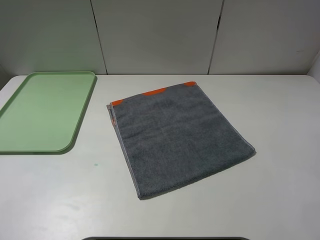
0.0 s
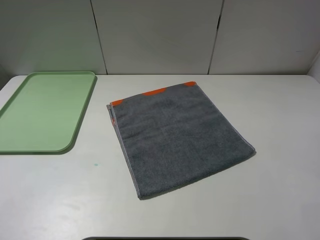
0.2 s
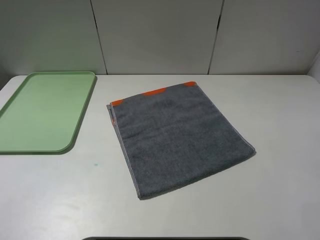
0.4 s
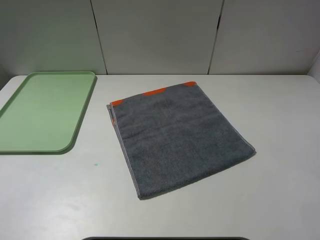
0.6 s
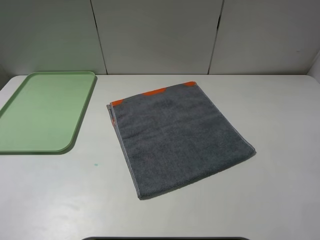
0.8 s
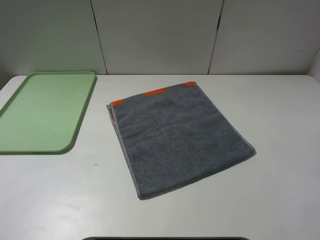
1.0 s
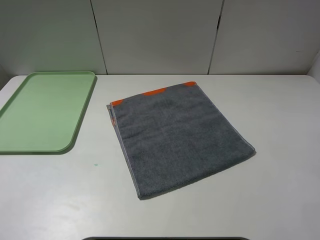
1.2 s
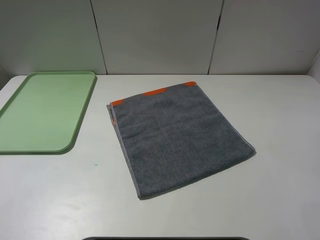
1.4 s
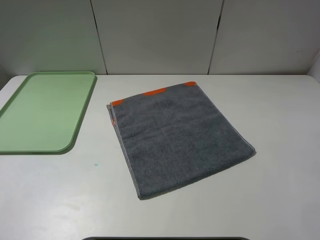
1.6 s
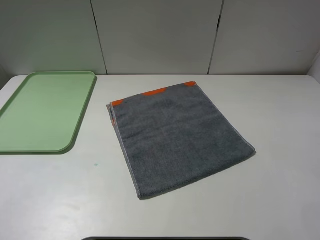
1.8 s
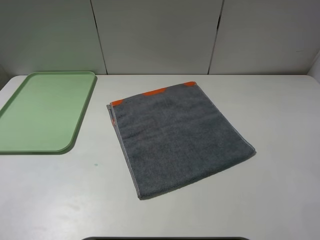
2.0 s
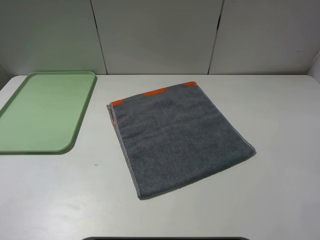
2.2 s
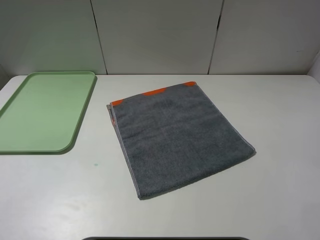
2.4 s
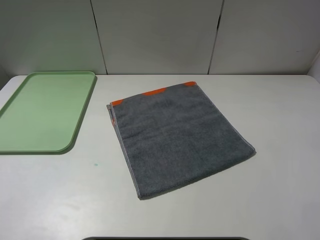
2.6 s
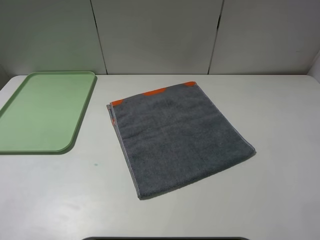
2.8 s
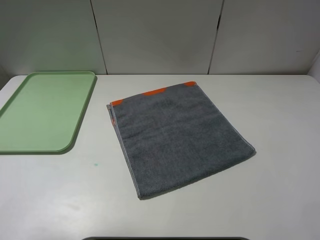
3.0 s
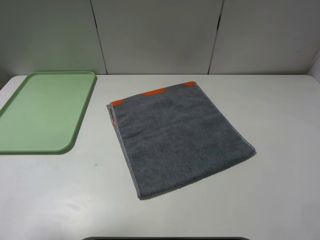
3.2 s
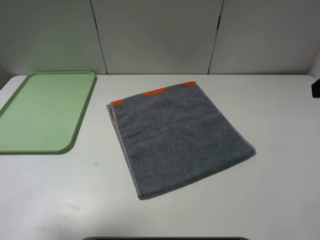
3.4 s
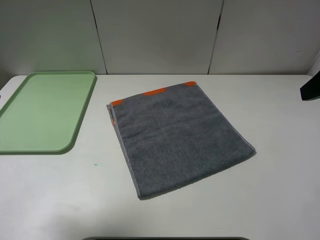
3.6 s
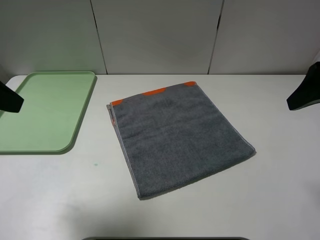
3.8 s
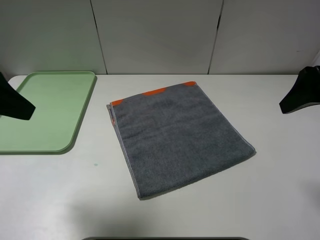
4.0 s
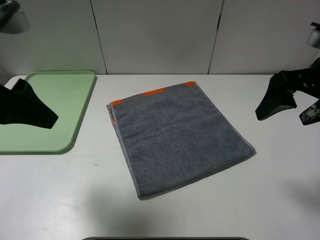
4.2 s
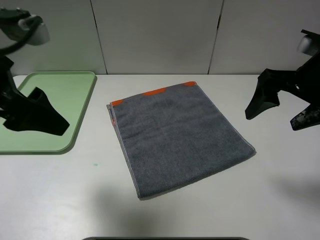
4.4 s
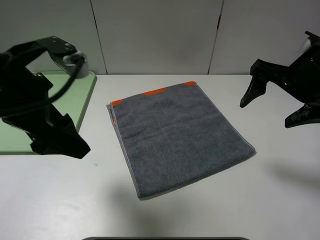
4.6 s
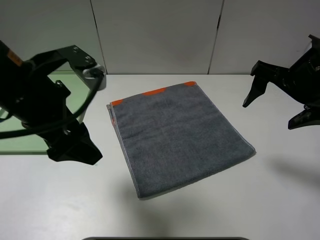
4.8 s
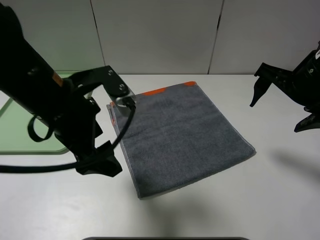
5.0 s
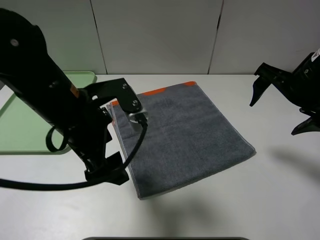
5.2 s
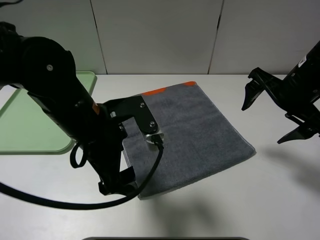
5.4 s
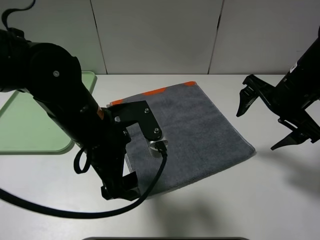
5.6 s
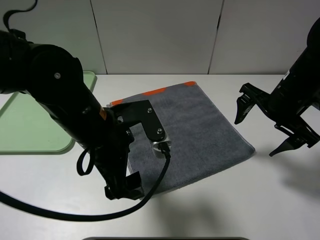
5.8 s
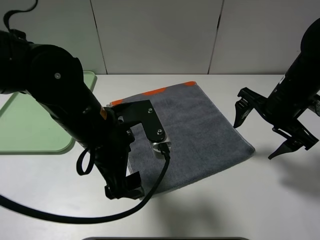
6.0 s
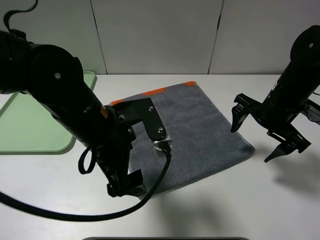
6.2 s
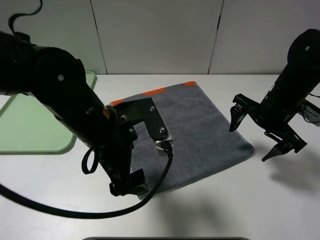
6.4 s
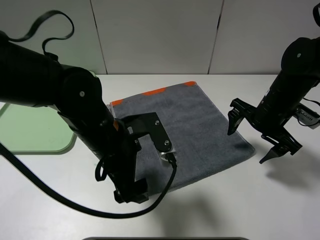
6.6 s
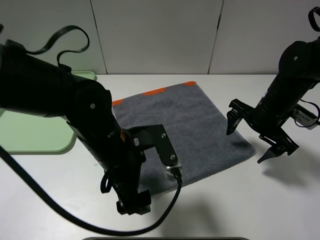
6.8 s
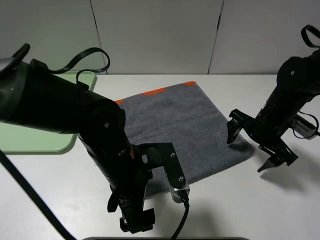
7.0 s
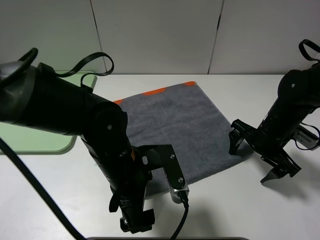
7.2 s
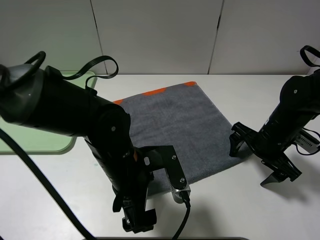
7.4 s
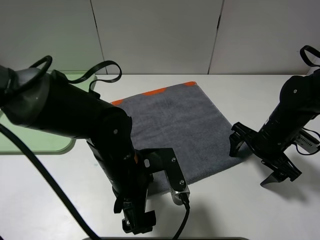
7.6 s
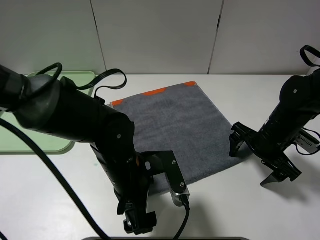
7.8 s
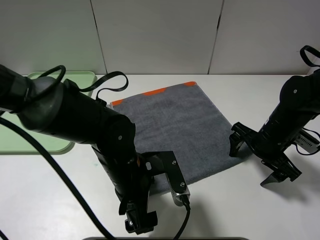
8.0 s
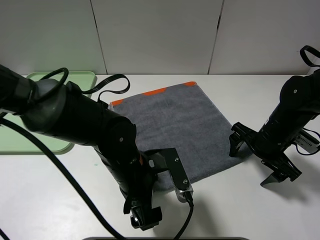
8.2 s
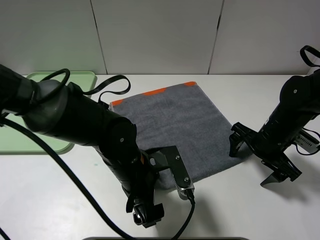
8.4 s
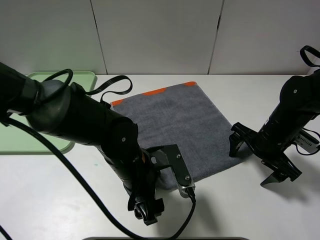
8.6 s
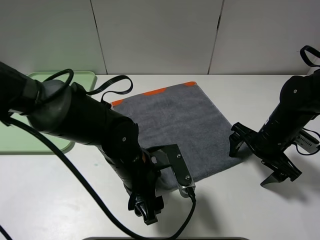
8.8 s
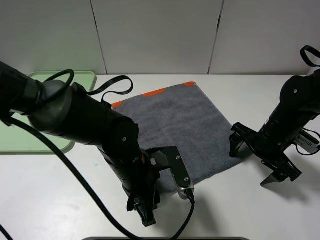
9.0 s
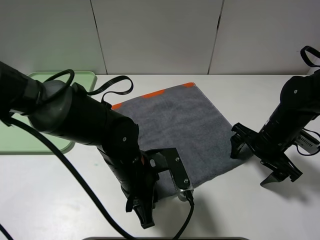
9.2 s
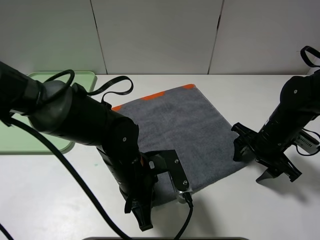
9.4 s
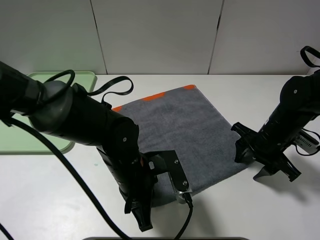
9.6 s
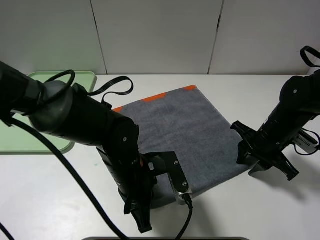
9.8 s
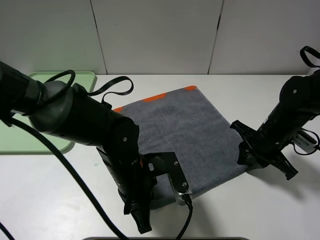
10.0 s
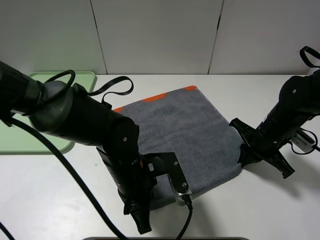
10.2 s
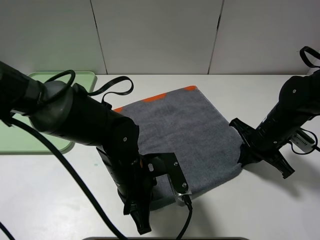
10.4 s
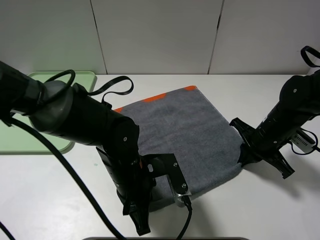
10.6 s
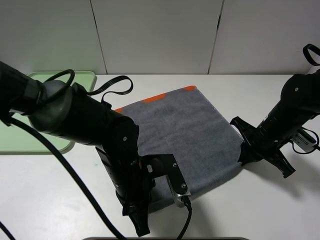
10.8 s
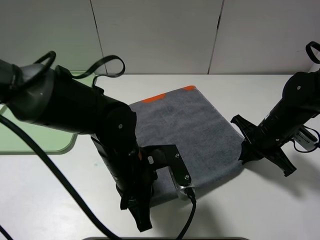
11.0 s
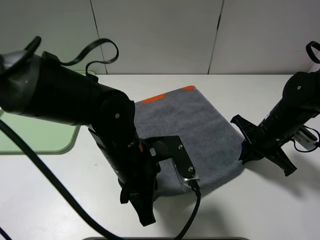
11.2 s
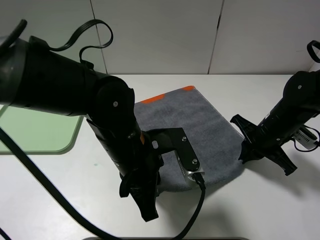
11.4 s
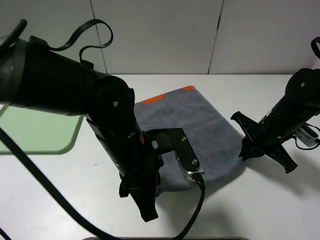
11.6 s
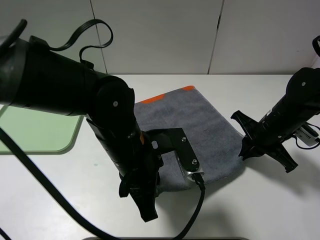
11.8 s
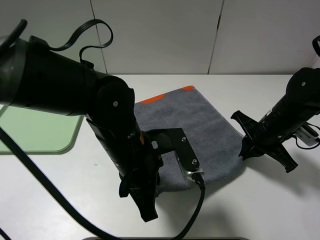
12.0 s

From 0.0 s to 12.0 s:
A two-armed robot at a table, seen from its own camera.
From 0.0 s to 1.6 s: The two grippers keep their place.
From 3.0 s to 4.4 s: The right gripper travels forward, downward and to the left by roughly 15 cm. Meanwhile the left gripper goes some 15 cm forward, to the right and downward.
From 4.4 s to 6.0 s: The left gripper moves to the right and downward, about 15 cm. Meanwhile the right gripper travels downward by about 10 cm.
From 6.0 s to 7.6 s: The two grippers go approximately 10 cm downward.
From 7.6 s to 9.0 s: The left gripper closes.
From 9.0 s to 10.4 s: The left gripper closes. Meanwhile the right gripper closes.
From 10.4 s to 12.0 s: The left gripper moves upward, some 5 cm.

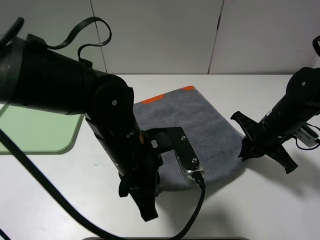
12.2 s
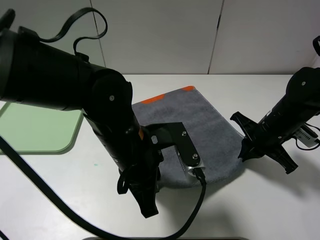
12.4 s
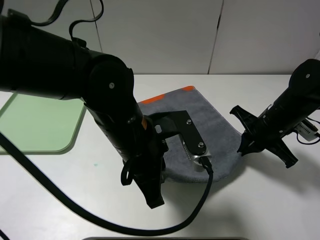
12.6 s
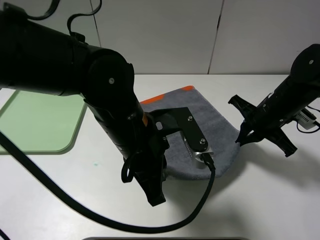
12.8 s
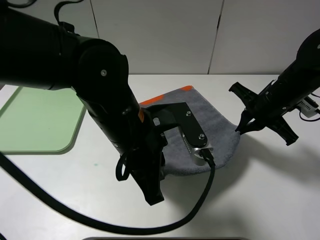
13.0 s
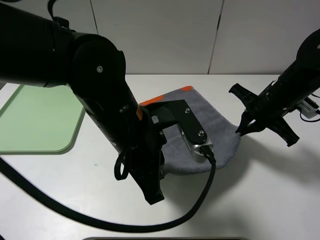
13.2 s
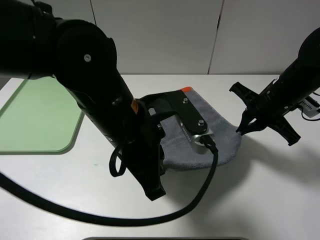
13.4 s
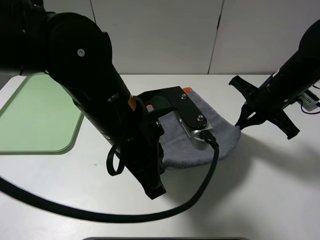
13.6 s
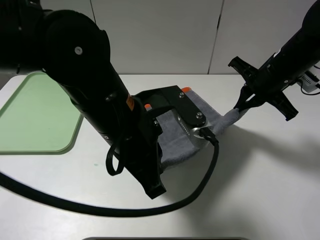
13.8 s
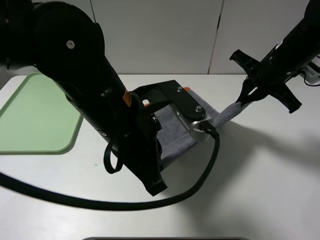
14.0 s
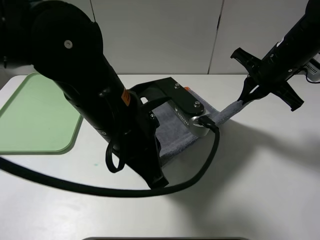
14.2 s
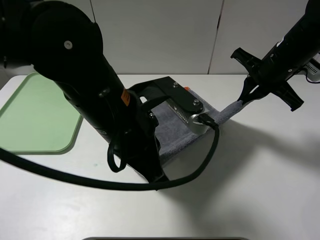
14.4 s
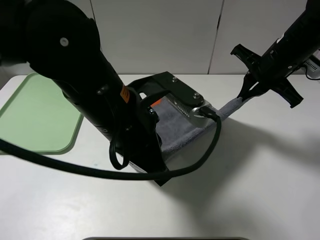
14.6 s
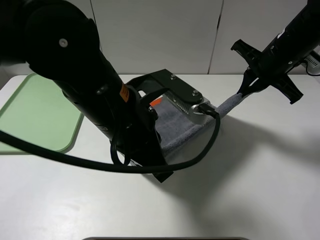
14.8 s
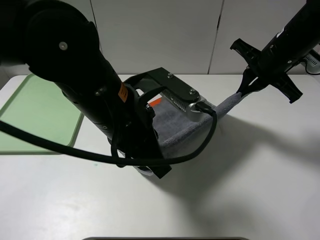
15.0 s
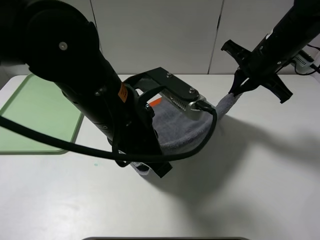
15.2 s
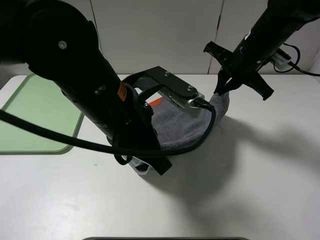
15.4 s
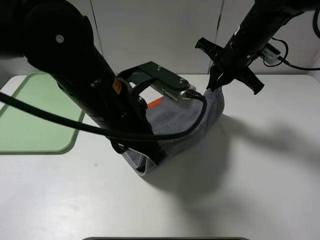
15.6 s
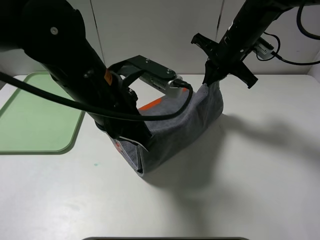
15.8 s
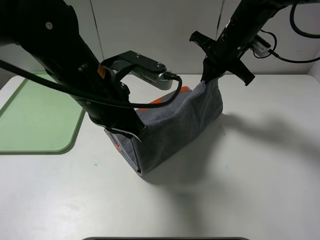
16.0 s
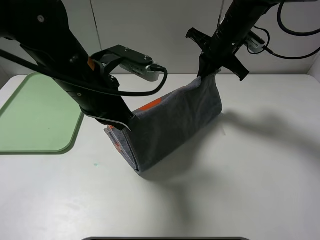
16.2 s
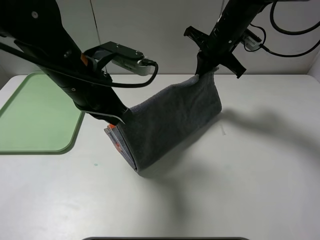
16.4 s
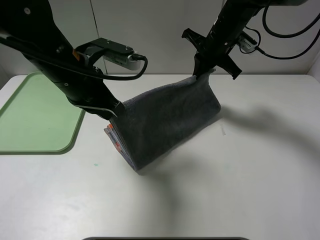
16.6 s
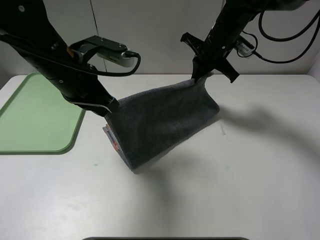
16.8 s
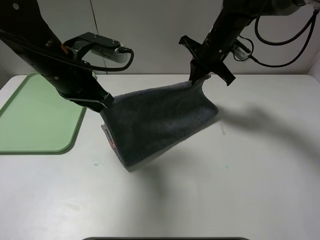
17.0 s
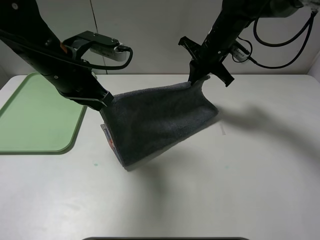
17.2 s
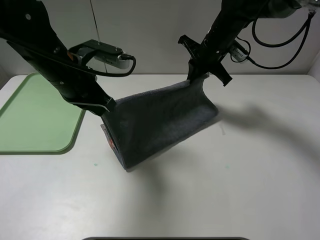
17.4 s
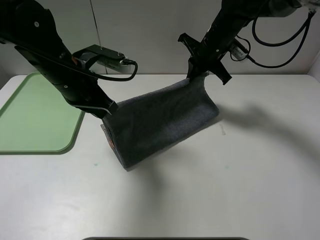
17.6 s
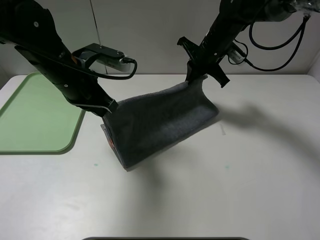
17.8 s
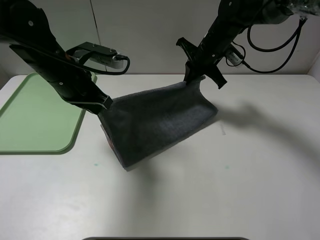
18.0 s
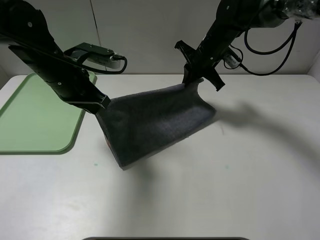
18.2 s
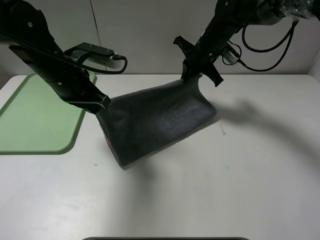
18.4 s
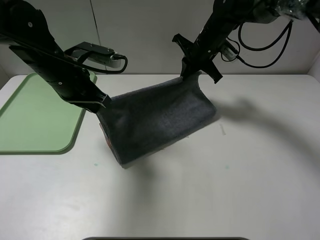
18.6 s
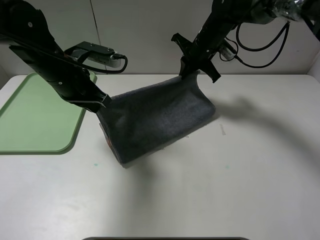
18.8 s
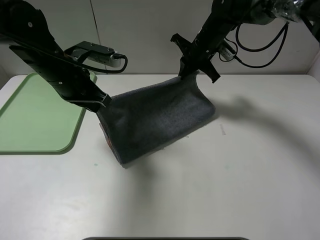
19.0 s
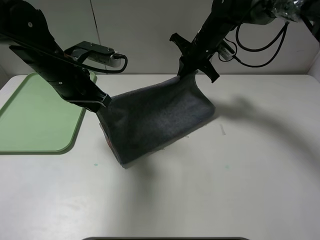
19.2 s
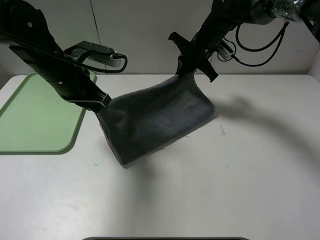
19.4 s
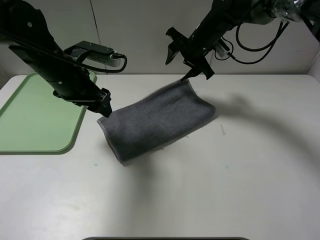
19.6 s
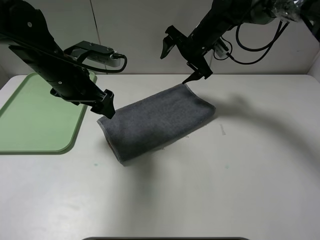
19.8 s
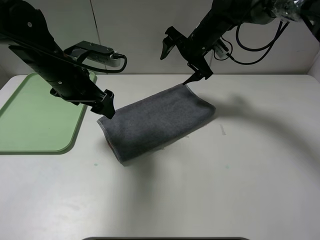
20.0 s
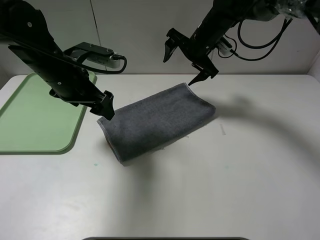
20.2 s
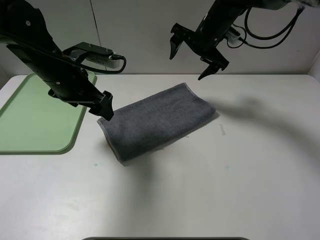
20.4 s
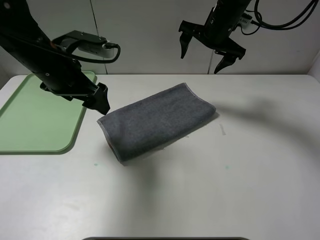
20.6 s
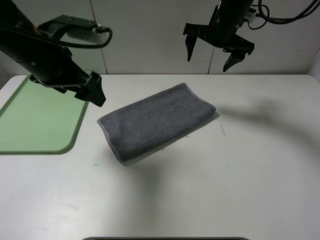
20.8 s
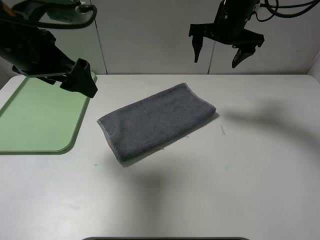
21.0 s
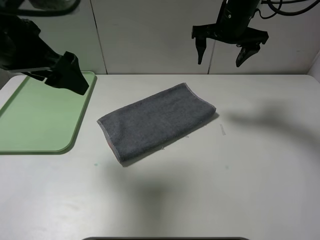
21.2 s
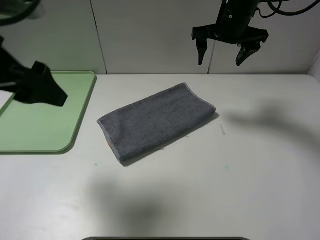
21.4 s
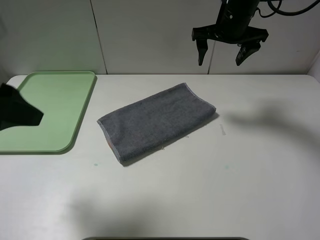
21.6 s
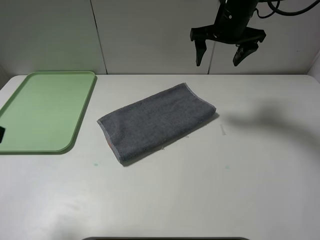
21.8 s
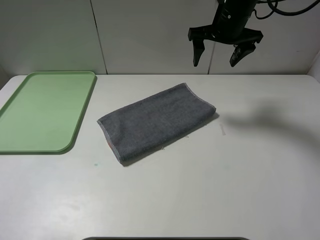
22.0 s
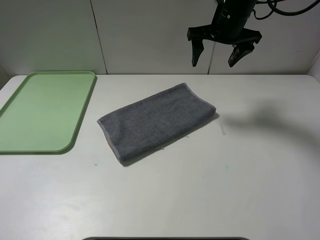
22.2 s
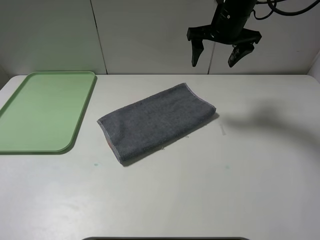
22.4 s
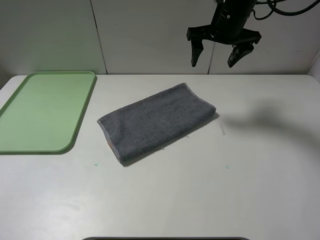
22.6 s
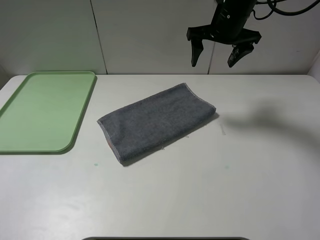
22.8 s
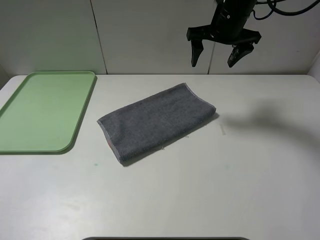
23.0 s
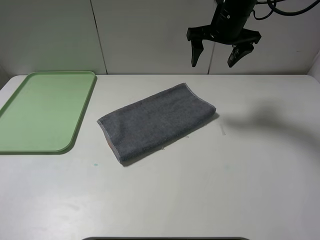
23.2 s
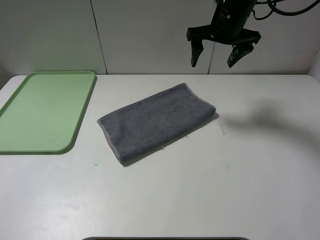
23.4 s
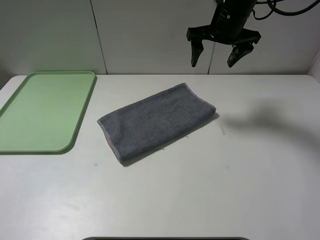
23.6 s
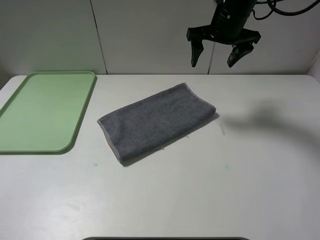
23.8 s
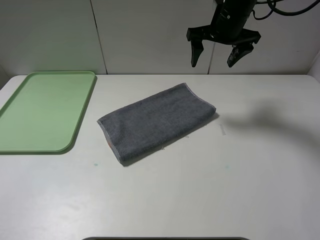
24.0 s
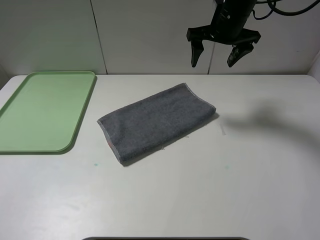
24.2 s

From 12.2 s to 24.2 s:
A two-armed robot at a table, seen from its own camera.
Step, from 12.2 s to 19.6 s: Fold the grey towel upwards.
From 12.2 s to 13.8 s: The left gripper shifts about 5 cm upward. Meanwhile the right gripper travels upward and forward by roughly 10 cm.
From 15.2 s to 16.6 s: The left gripper moves to the left and forward, about 15 cm; the right gripper shifts roughly 10 cm forward and to the left.
From 16.6 s to 18.2 s: The left gripper moves some 5 cm.
From 18.2 s to 19.8 s: The right gripper opens. Meanwhile the left gripper opens up.
From 19.8 s to 21.2 s: The right gripper goes approximately 5 cm upward. Meanwhile the left gripper travels upward and backward by approximately 15 cm.
From 21.2 s to 22.6 s: The left gripper moves backward and to the left, approximately 25 cm.
From 22.6 s to 24.2 s: Both grippers stay about where they are.
